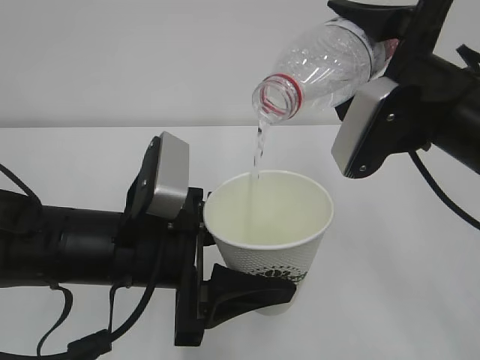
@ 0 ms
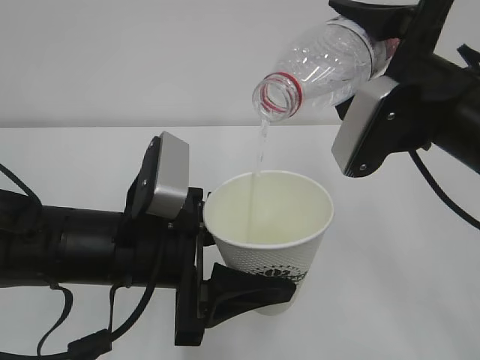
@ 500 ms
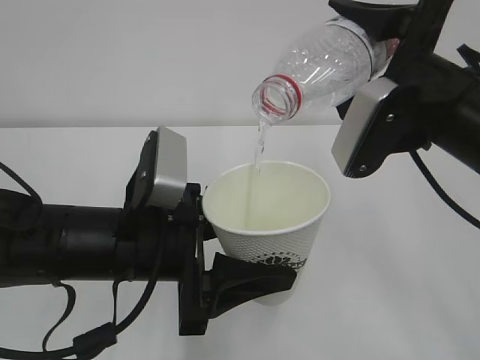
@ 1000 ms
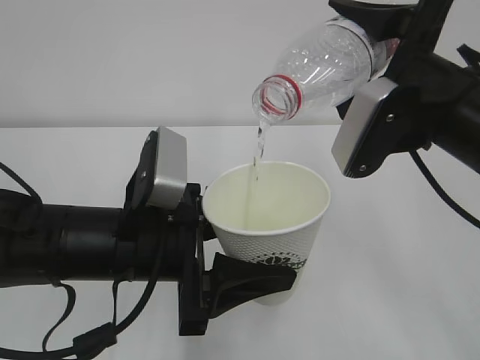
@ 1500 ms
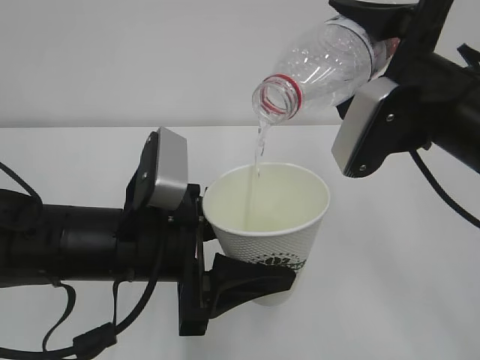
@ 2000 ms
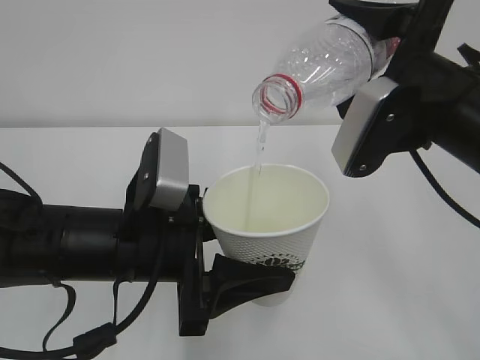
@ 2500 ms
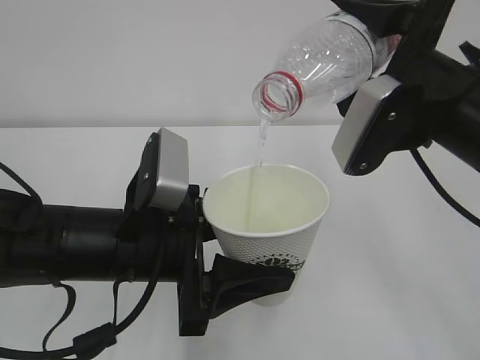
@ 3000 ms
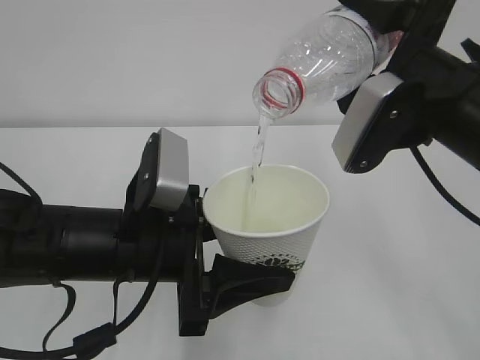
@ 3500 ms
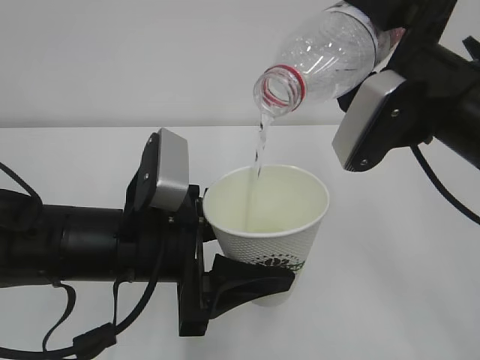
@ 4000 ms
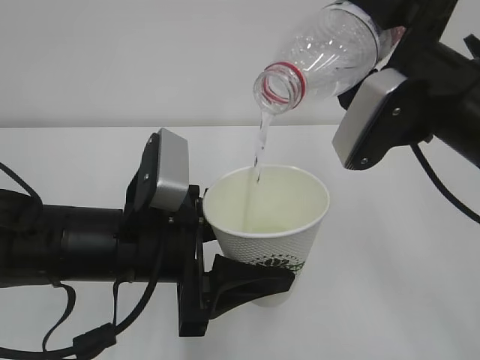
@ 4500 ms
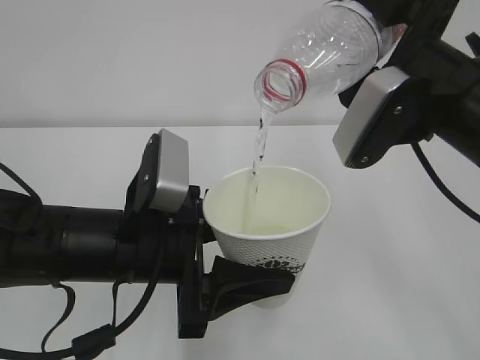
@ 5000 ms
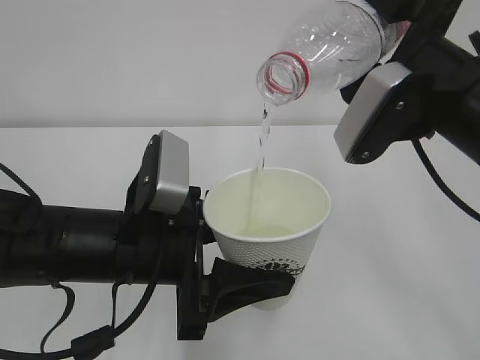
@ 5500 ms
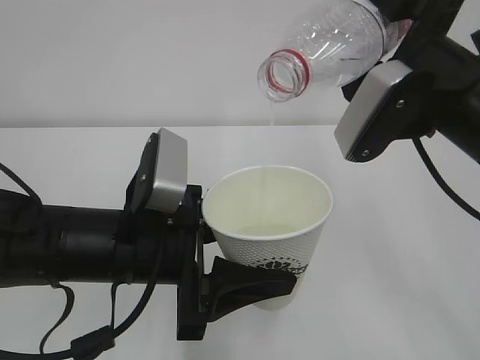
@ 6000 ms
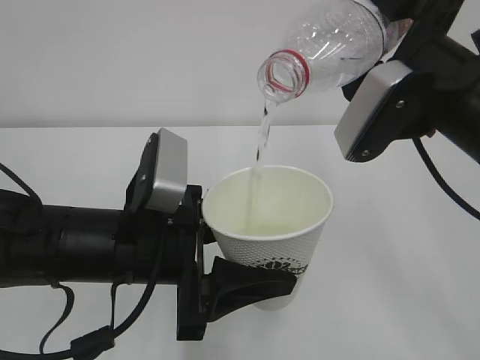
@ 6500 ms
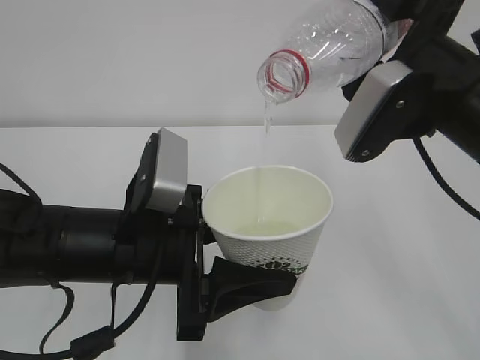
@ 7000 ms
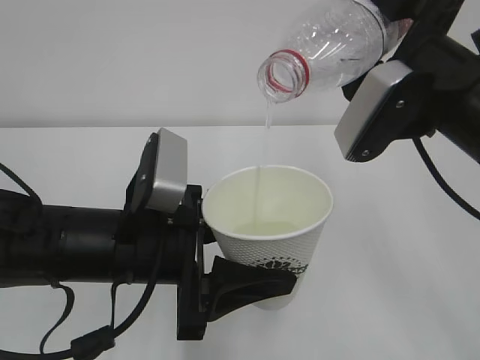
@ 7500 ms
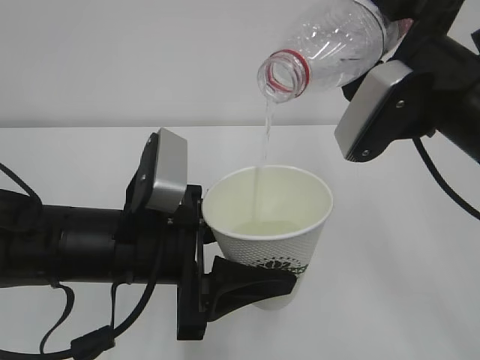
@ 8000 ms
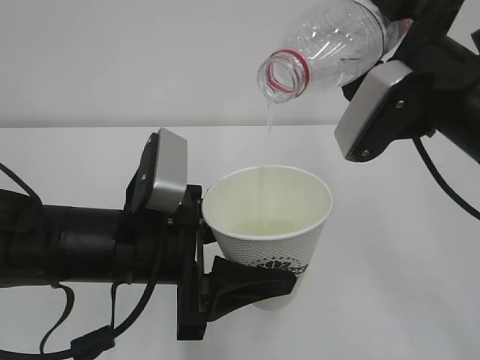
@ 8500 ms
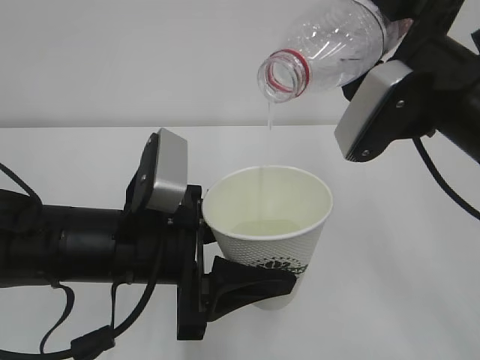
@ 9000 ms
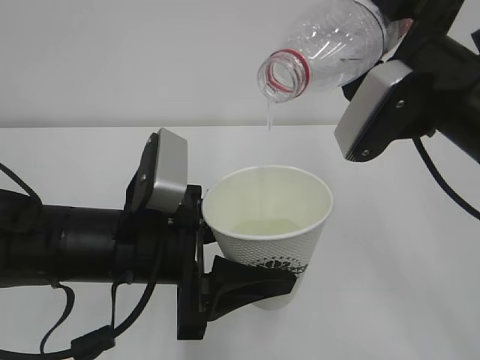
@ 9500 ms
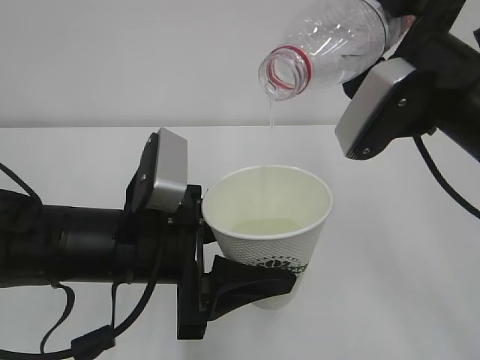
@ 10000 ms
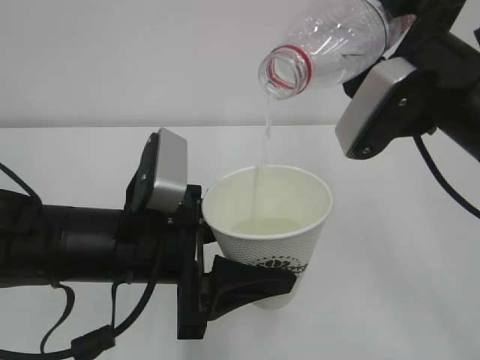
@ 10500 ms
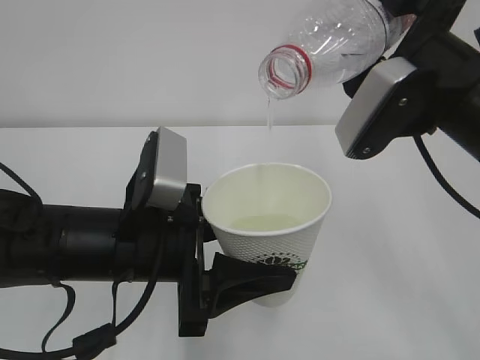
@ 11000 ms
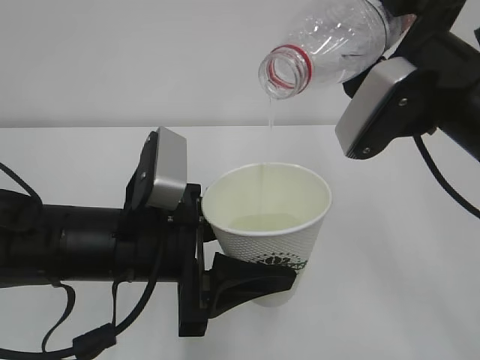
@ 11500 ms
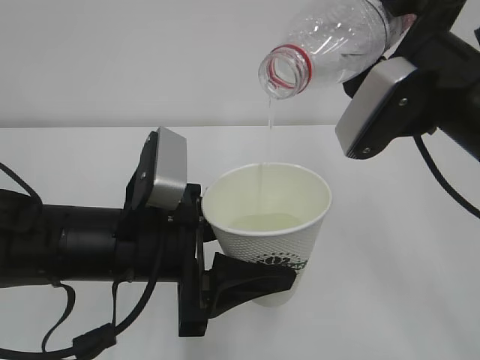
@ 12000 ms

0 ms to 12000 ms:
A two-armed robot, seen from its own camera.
0 ms to 4000 ms: Neither gripper changes place.
4000 ms to 12000 ms: Both grippers stay put.

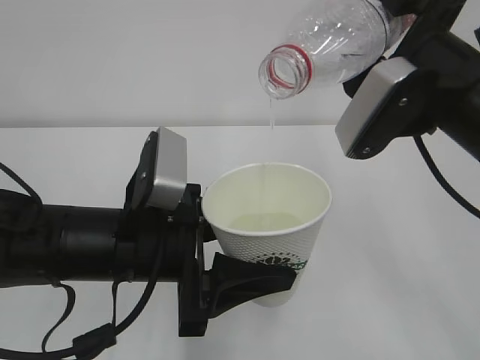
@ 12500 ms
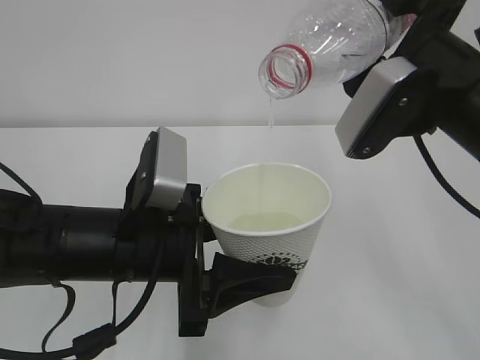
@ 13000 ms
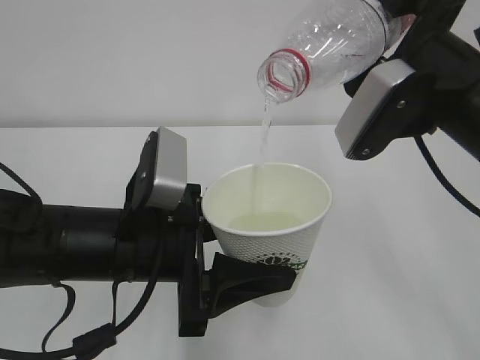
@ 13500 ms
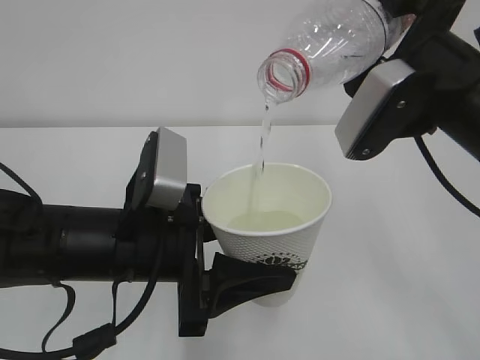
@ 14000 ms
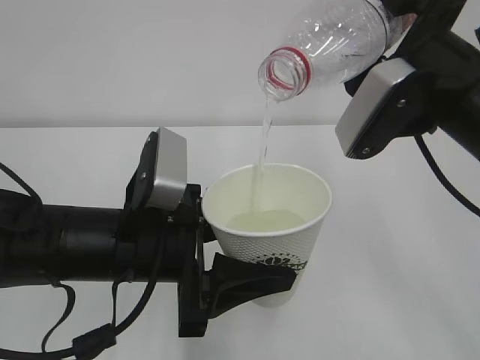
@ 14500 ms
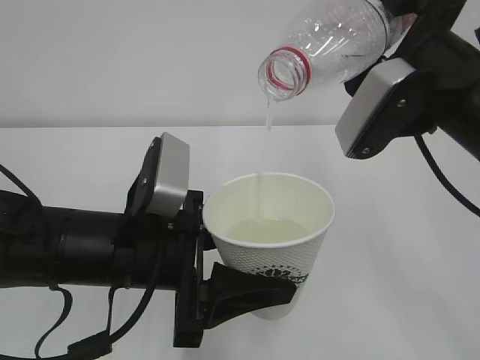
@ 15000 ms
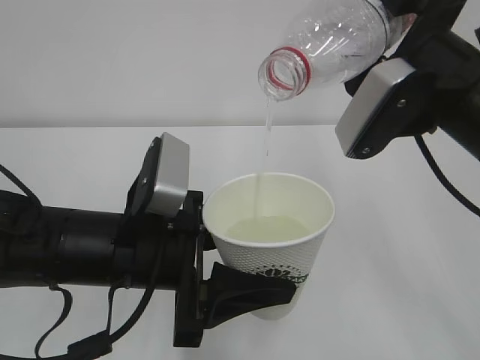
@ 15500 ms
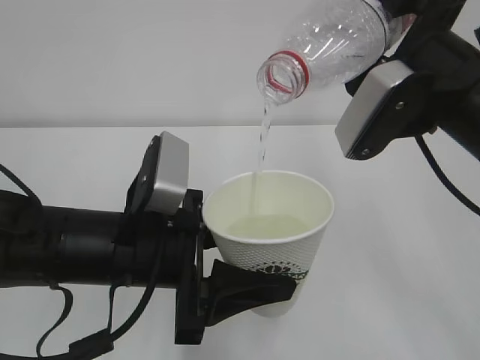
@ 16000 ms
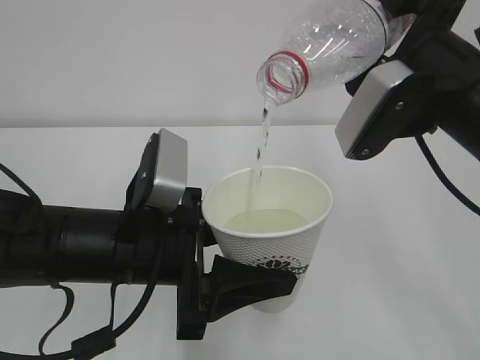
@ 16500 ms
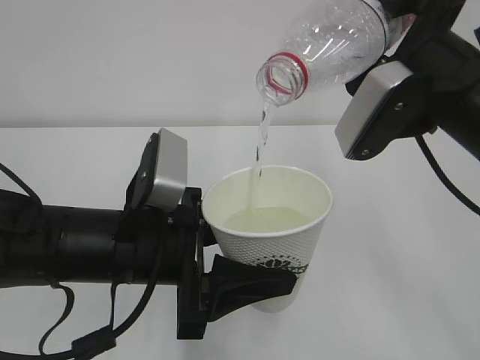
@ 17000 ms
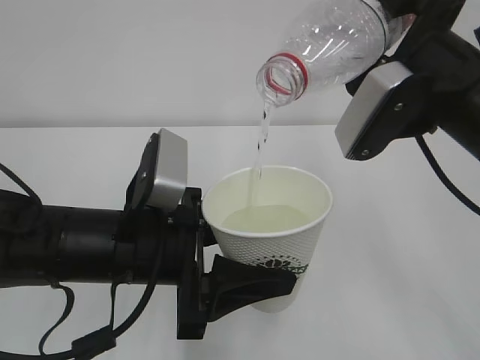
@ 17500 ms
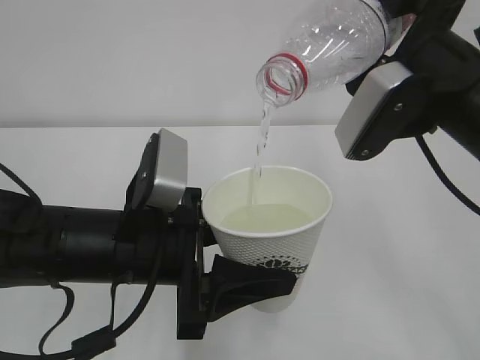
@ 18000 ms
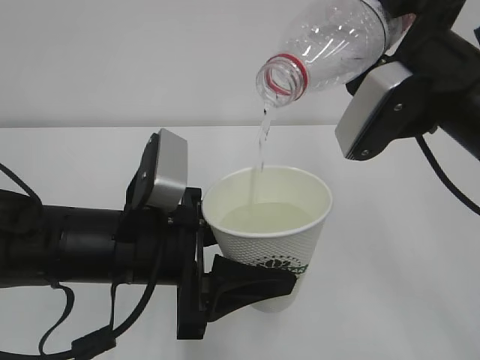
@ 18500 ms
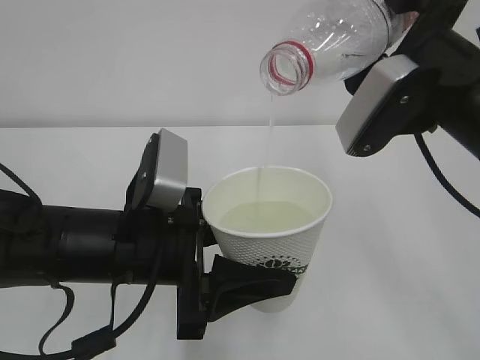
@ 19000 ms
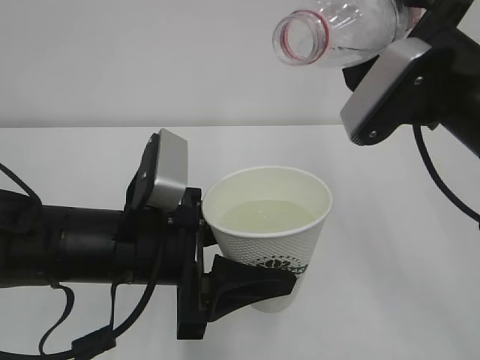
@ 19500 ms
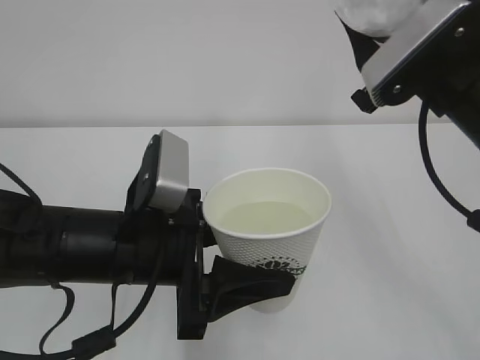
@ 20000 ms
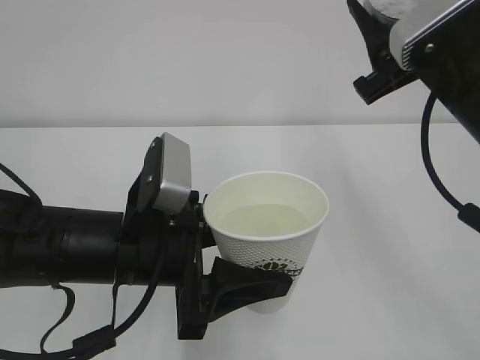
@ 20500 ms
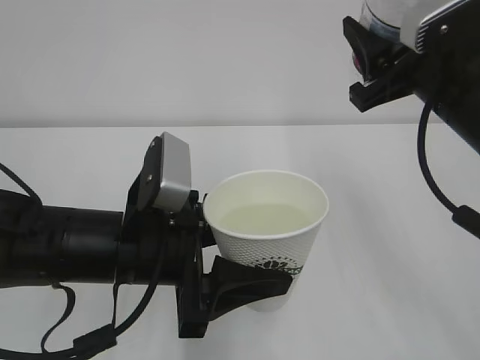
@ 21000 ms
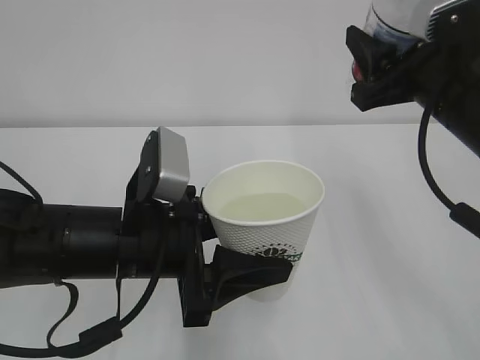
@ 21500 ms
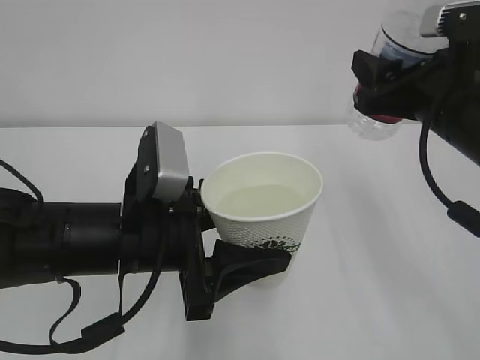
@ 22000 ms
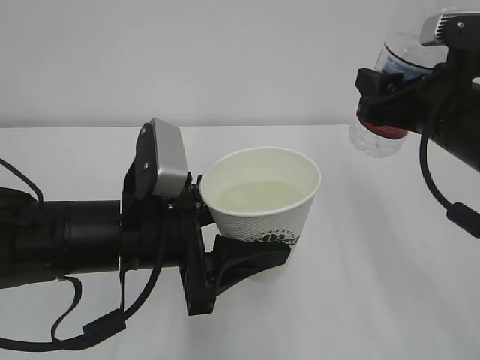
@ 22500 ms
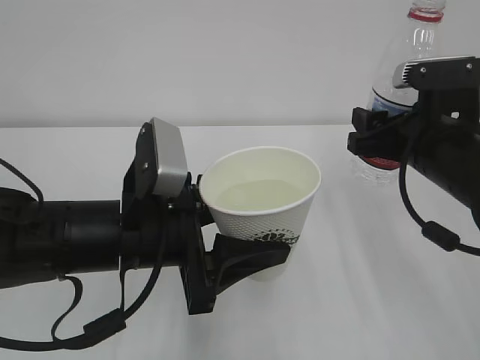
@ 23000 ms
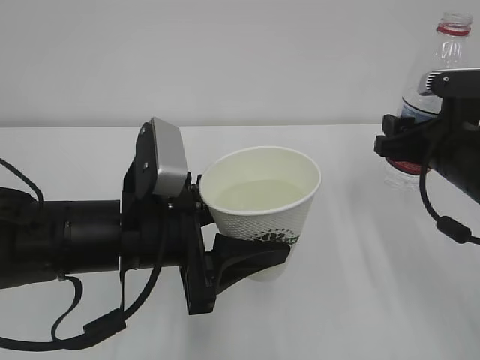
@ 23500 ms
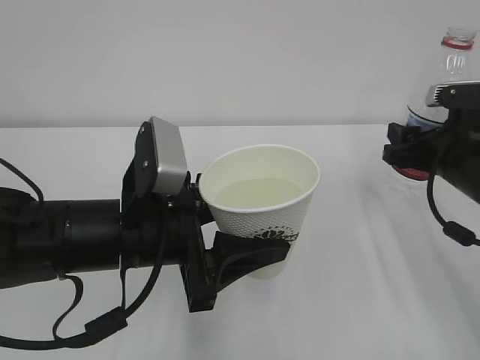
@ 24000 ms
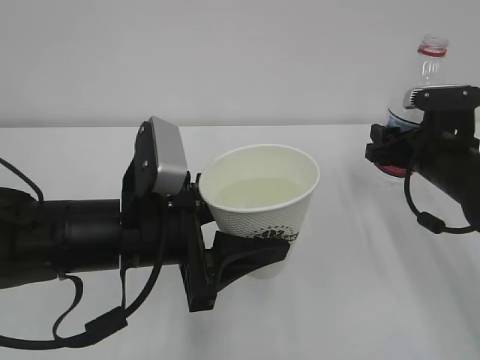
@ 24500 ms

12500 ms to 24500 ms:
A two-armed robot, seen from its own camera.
12500 ms to 18500 ms: Both grippers stay about where they are.
22500 ms to 24500 ms: The right gripper heads downward and forward, covering about 10 cm.

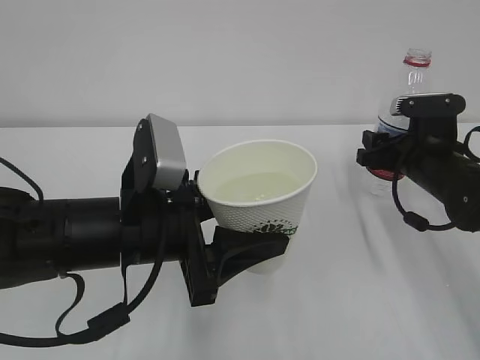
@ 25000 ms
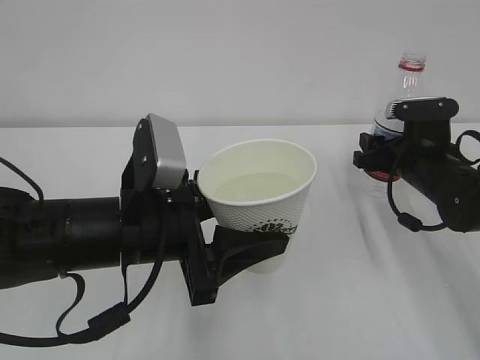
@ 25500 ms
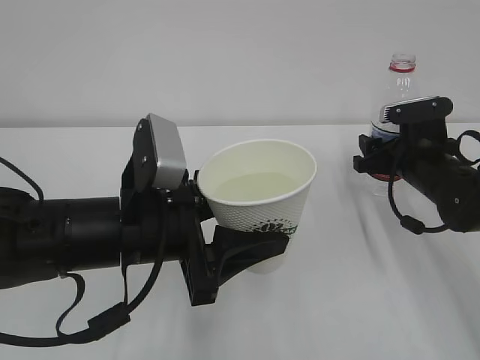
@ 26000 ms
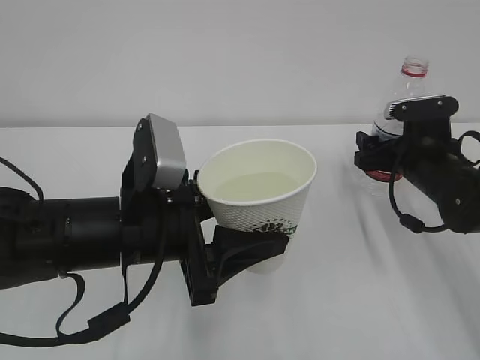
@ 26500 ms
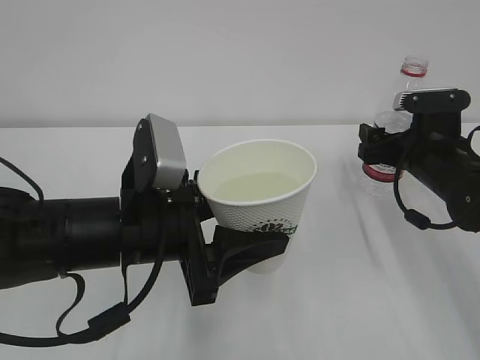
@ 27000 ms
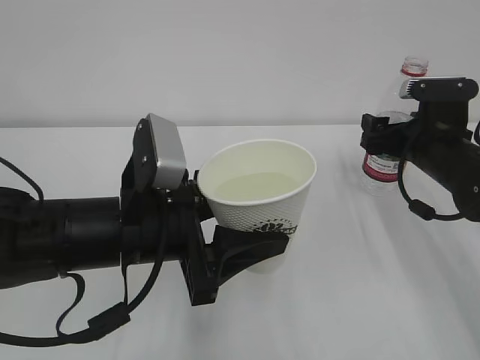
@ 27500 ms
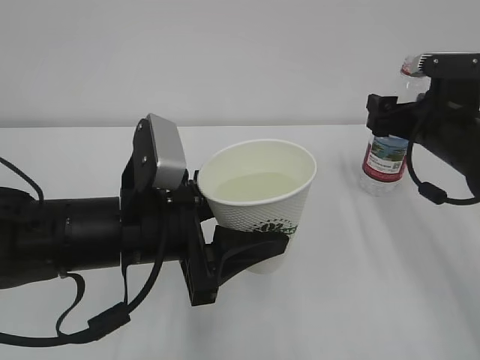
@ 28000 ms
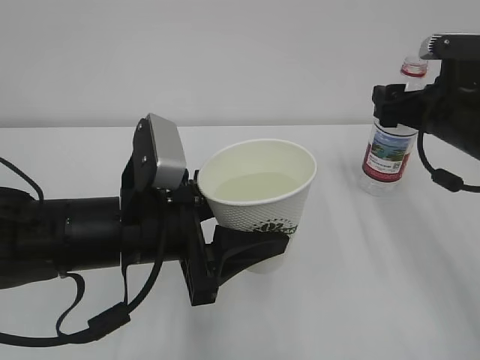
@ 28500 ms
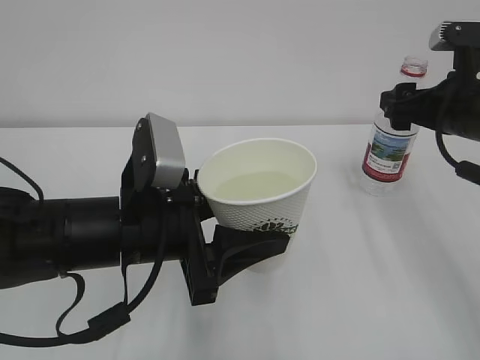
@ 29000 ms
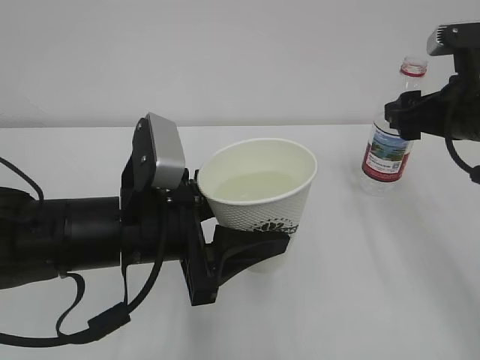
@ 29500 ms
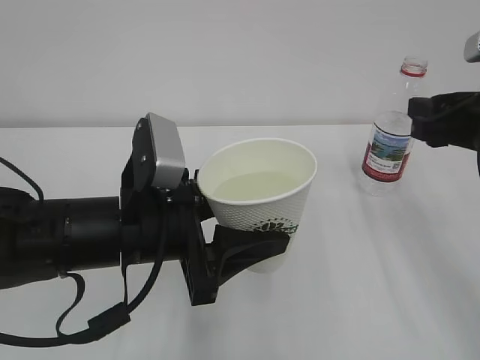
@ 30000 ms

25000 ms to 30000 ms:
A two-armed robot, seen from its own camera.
25000 ms to 27500 ms: The right gripper opens.
27500 ms to 30000 ms: The right gripper heads upward and backward, covering roughly 15 cm, and closes its fingers.
